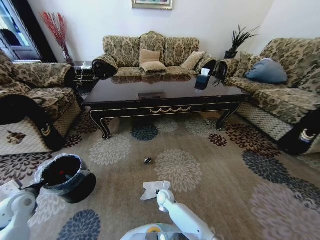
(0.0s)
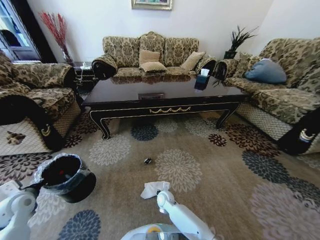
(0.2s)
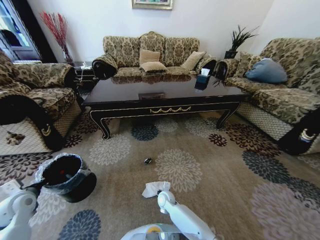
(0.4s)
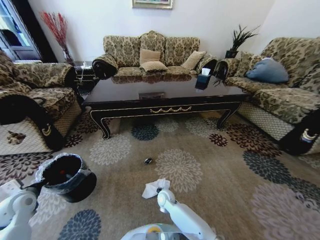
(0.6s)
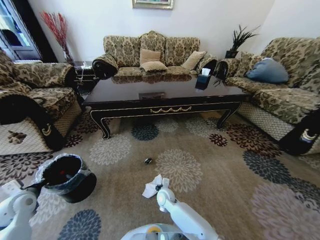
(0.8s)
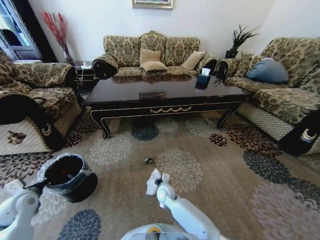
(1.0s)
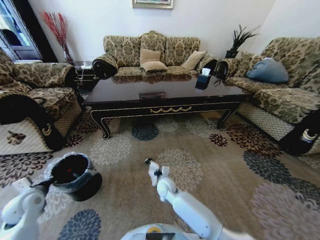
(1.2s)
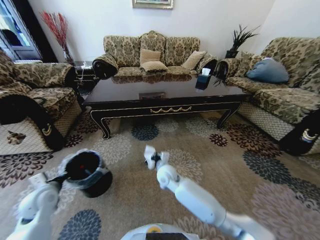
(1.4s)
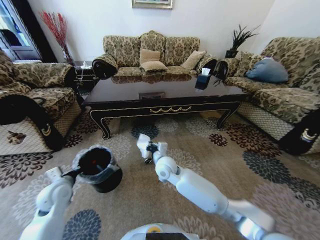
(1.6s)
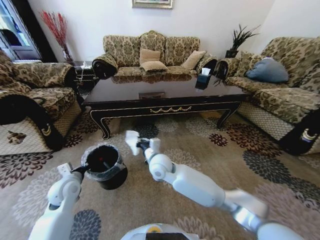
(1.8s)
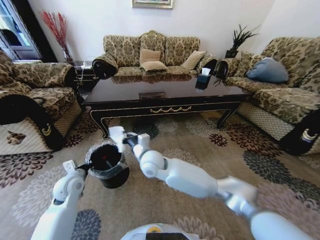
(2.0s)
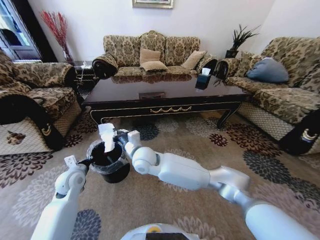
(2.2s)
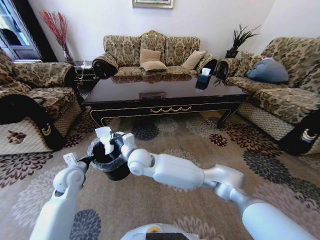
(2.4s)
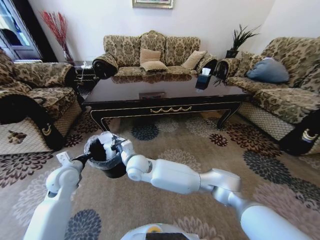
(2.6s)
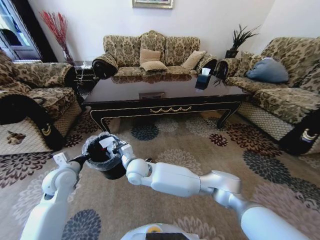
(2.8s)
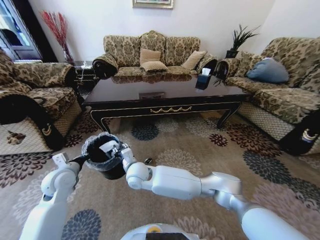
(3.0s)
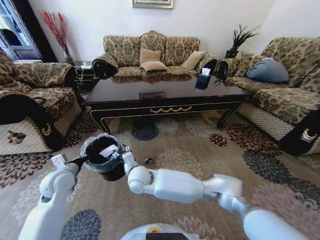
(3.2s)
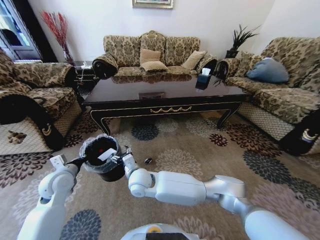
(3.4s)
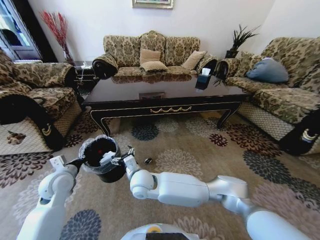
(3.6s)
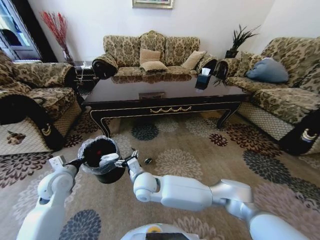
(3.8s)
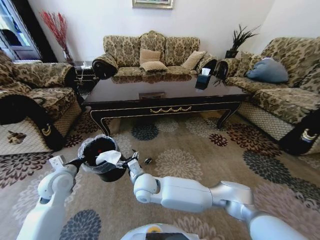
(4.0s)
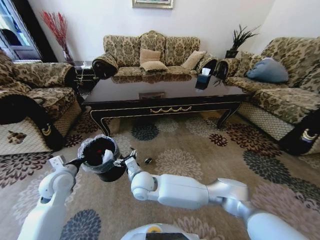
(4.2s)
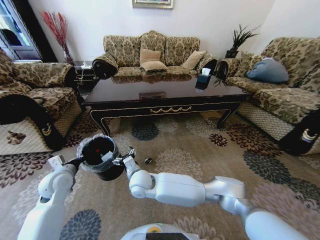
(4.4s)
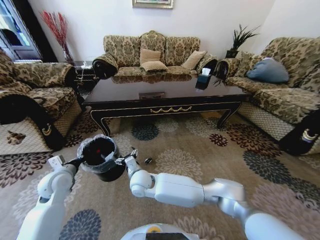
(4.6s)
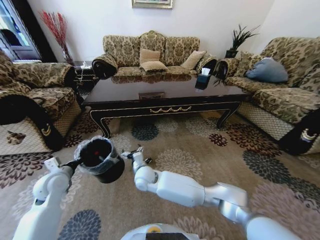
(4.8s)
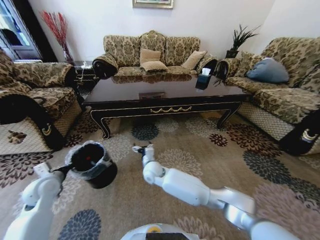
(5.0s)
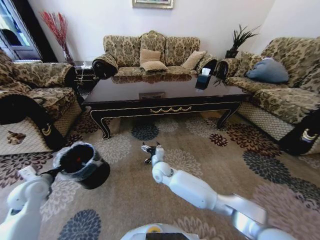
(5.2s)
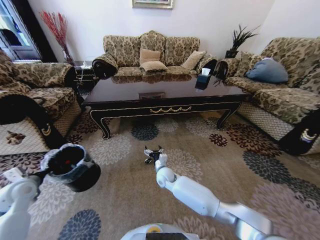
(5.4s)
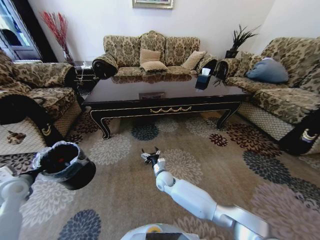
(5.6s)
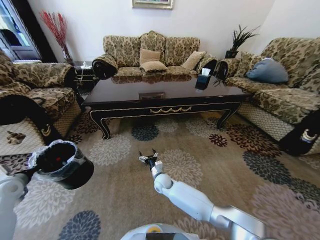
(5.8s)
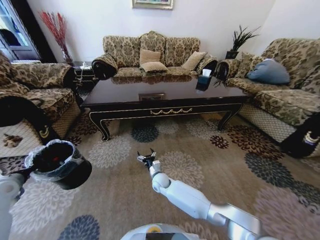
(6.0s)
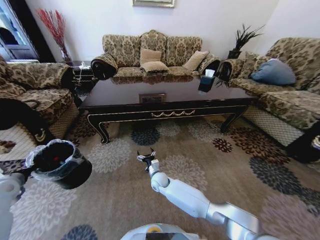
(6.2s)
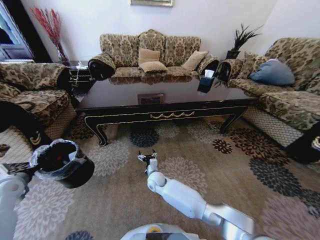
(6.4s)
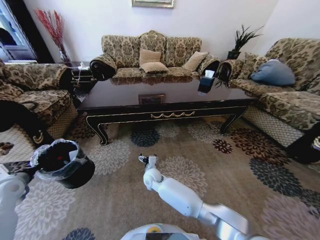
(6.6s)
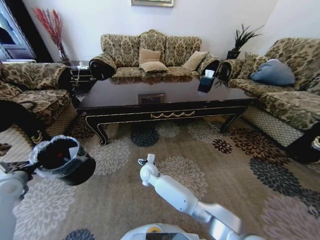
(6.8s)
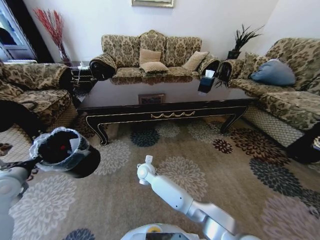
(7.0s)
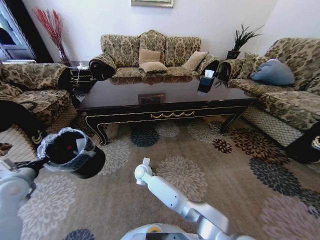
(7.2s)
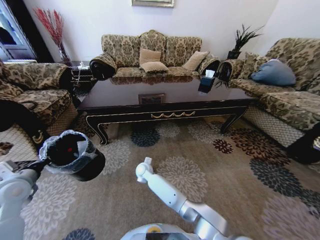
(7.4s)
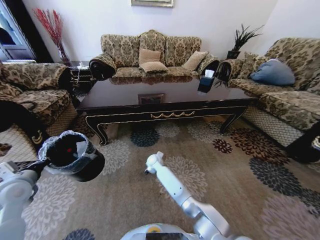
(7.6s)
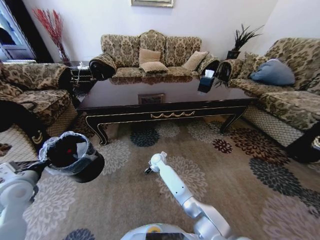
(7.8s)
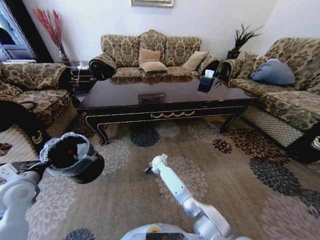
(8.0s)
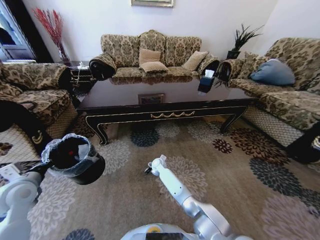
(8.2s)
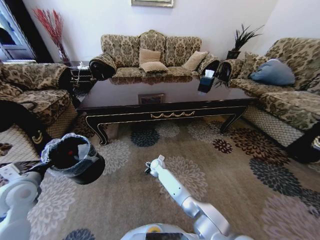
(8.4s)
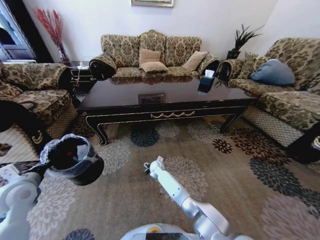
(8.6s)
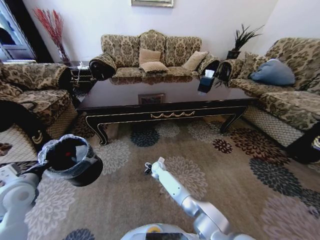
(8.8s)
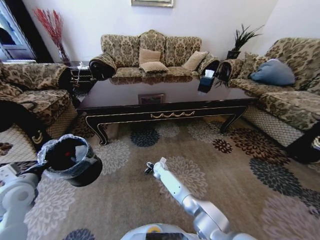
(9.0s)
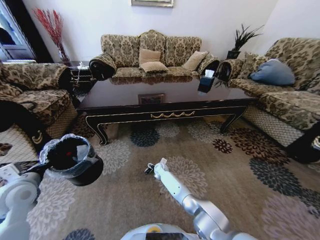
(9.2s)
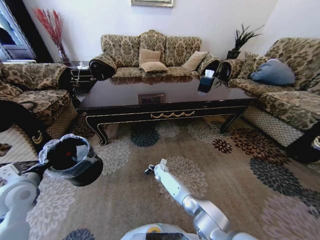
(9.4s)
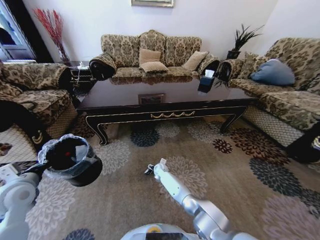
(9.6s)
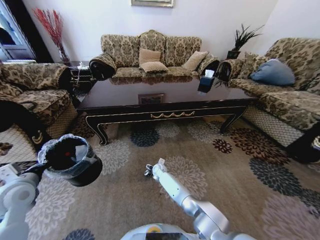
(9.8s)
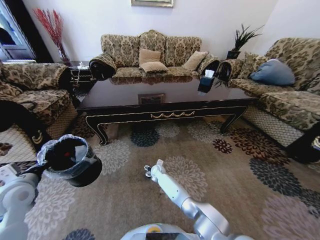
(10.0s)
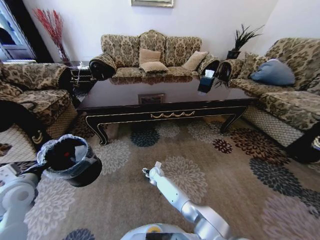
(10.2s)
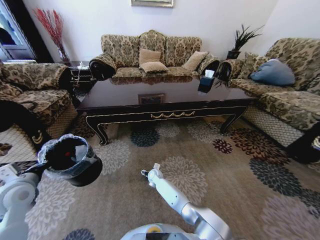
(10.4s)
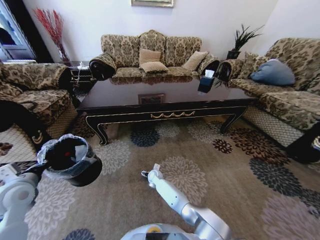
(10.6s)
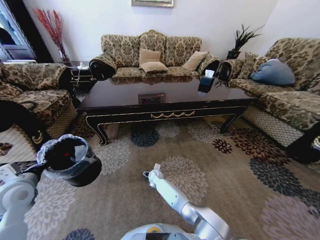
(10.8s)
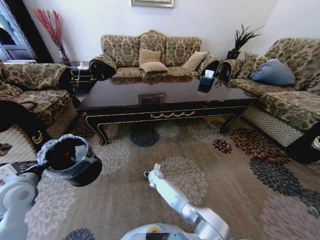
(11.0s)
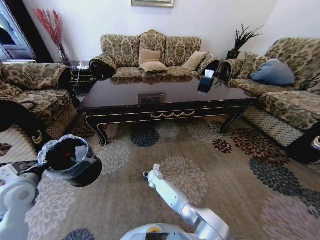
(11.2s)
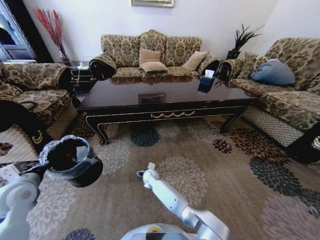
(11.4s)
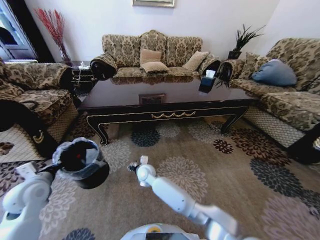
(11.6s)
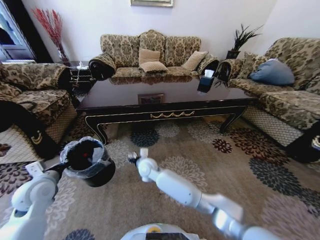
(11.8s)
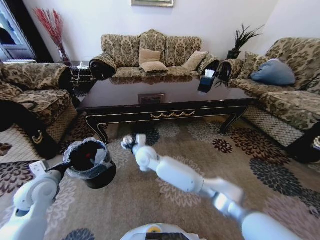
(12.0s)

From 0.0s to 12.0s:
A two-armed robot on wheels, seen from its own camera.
Task of the whole recording: Move to the front of the table and pick up the trash from the floor, then place it into the trash bin.
From 0.0s to 1.6s: The left gripper travels to the right by about 15 cm. The right gripper moves upward, some 25 cm, and closes.
From 1.6s to 3.0s: The right gripper shifts approximately 10 cm to the left, and opens up. Meanwhile the left gripper changes place by some 5 cm.
From 3.0s to 4.4s: The right gripper opens up.
From 4.4s to 6.0s: The left gripper travels to the left by approximately 15 cm, while the right gripper heads downward, to the right and forward, covering approximately 20 cm.
From 6.0s to 7.6s: The right gripper heads forward, covering roughly 10 cm. Meanwhile the left gripper travels to the right by approximately 10 cm.
From 7.6s to 9.0s: The right gripper travels downward and to the right by about 10 cm.
From 9.0s to 10.4s: The right gripper ends up approximately 5 cm from where it was.
From 10.4s to 12.0s: The right gripper goes approximately 25 cm upward, and closes; the left gripper shifts by some 5 cm.

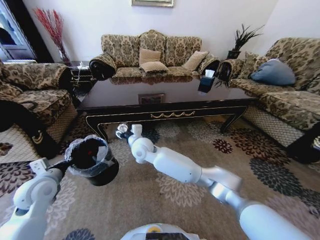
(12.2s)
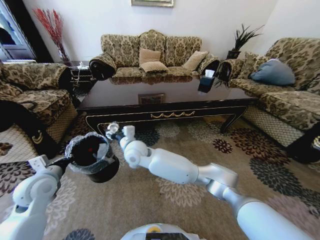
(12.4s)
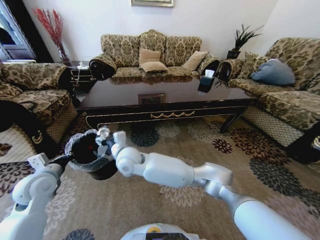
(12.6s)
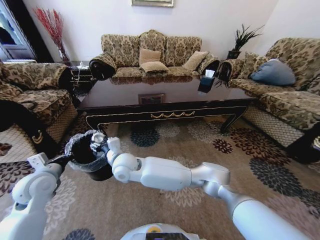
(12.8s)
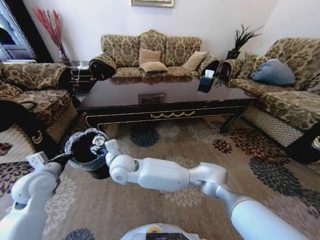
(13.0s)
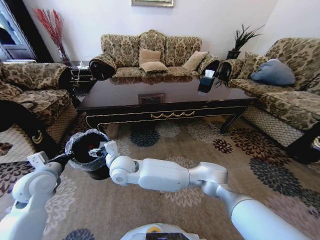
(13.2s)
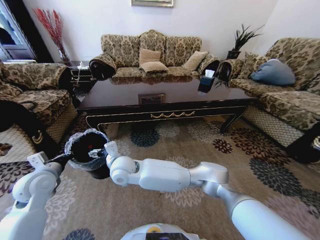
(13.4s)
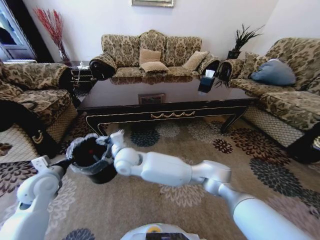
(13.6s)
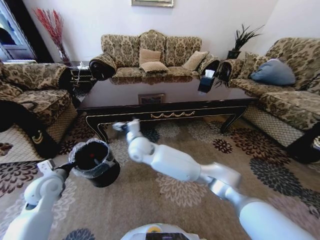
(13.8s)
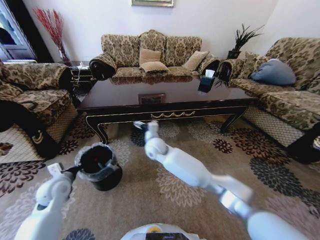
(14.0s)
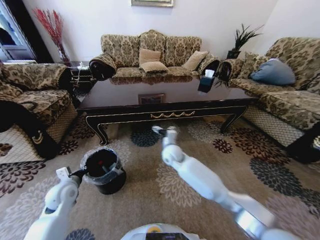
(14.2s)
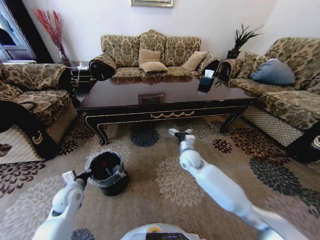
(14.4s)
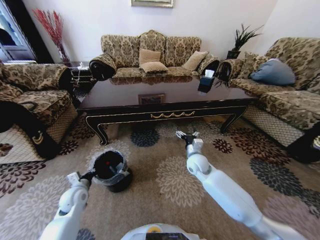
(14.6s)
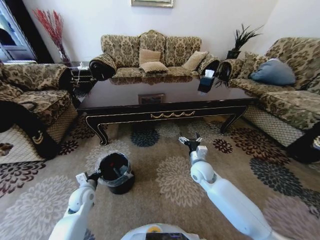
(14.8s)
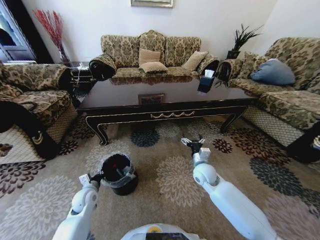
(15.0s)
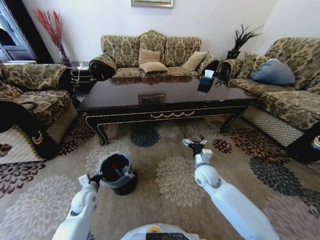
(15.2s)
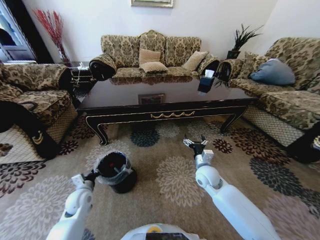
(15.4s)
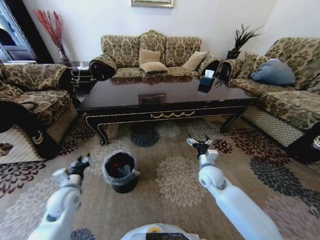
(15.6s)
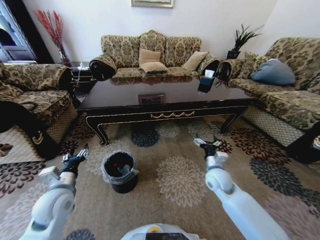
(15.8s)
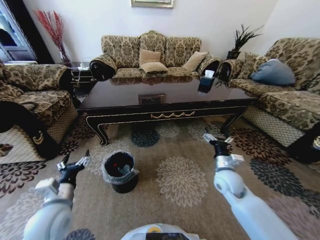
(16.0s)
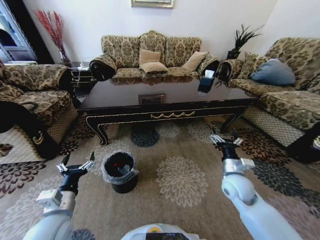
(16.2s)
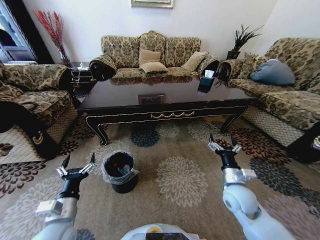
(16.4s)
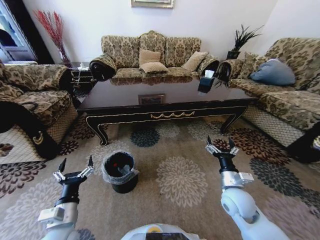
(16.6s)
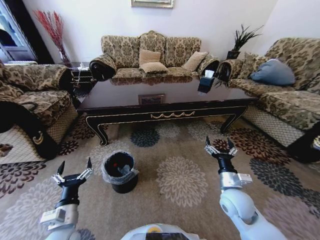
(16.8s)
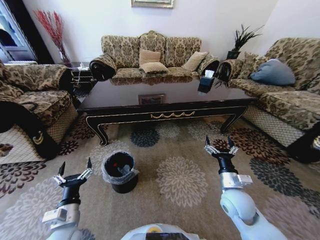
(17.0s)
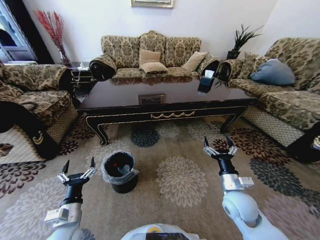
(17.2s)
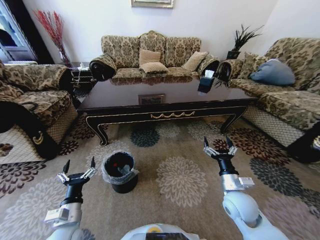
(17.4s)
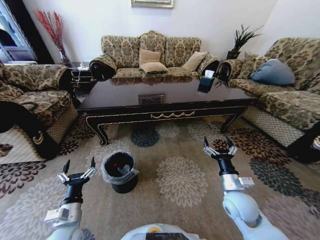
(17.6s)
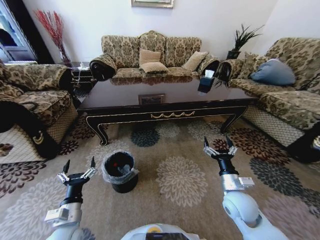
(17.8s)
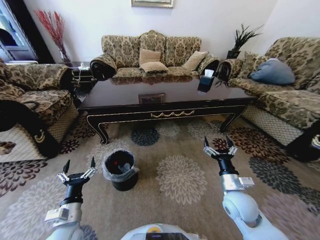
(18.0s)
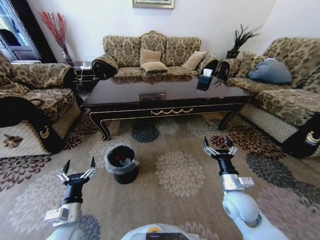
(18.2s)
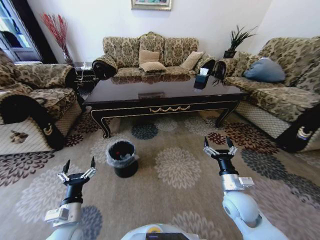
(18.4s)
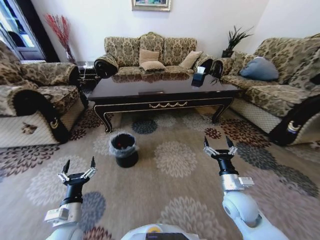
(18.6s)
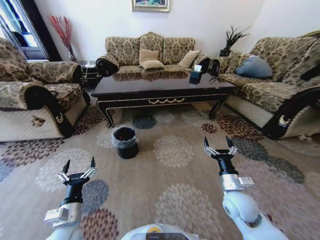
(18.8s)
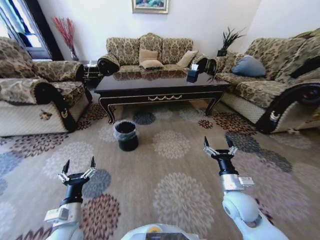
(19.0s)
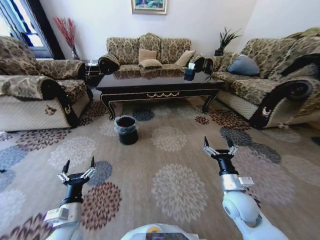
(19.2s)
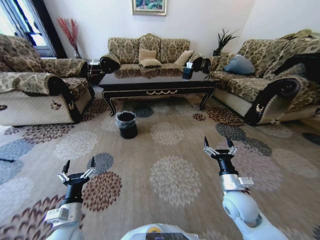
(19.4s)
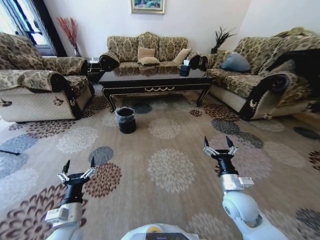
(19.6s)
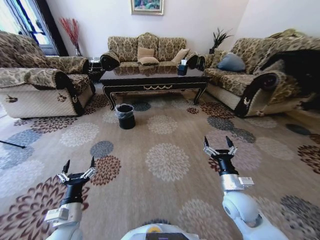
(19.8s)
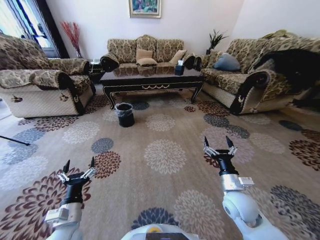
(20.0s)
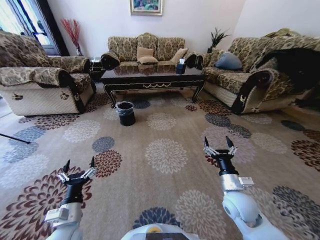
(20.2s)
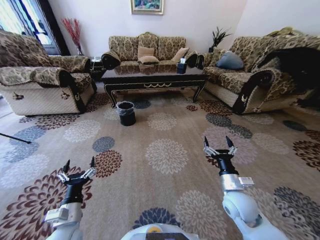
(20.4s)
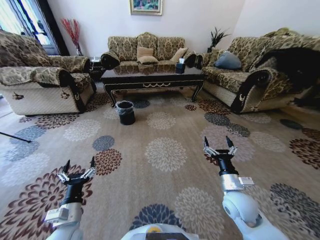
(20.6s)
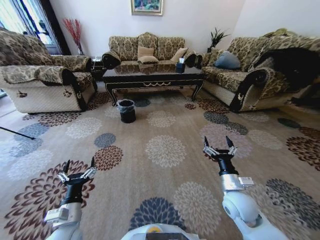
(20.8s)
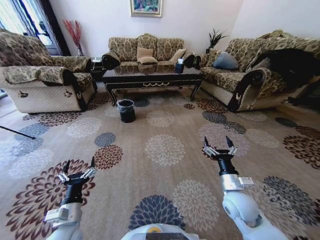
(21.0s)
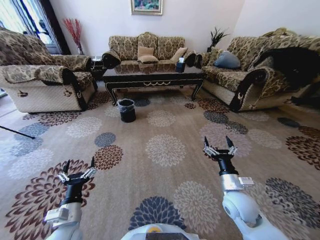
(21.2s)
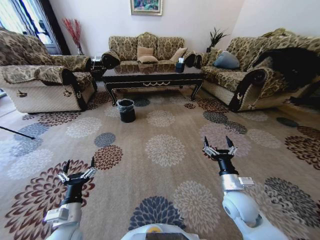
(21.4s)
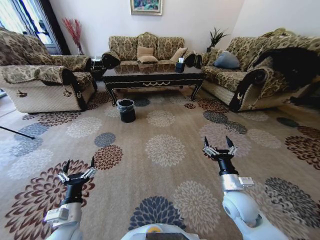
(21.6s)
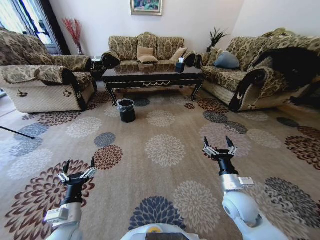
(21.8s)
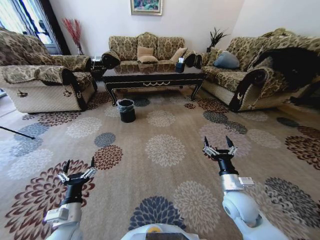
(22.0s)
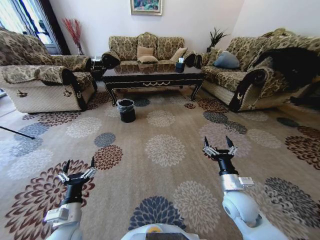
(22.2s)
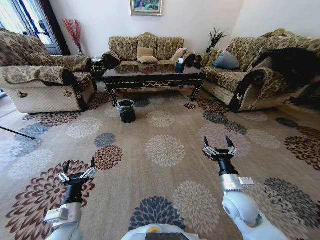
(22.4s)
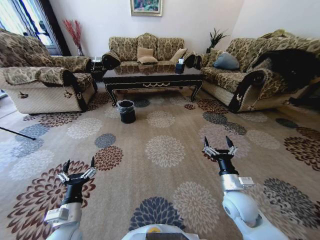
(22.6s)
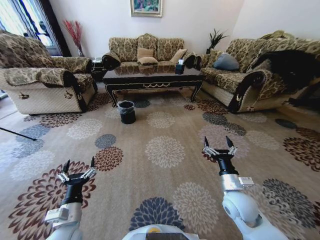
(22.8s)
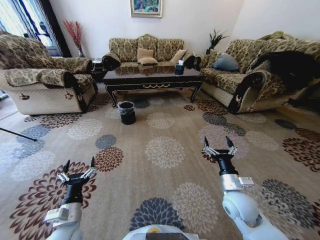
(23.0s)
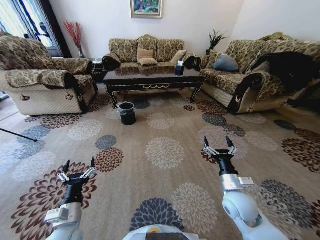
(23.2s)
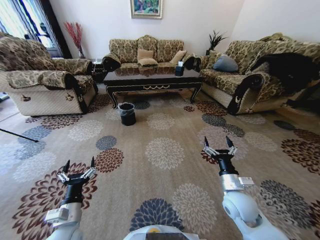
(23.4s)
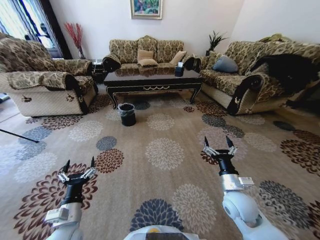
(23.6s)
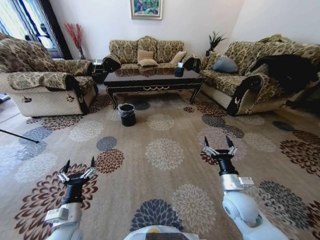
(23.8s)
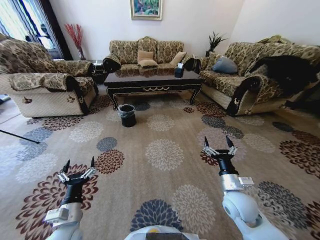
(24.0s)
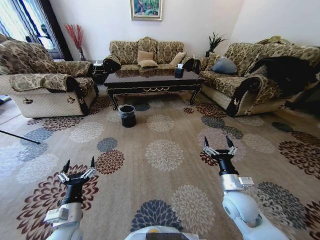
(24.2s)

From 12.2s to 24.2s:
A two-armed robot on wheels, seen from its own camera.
Task of the whole recording: Move to the front of the table and pick up the trash from the floor, then place it into the trash bin.
From 12.2s to 13.8s: The right gripper goes backward and returns, some 10 cm each way, and opens up.
From 13.8s to 15.2s: The right gripper travels to the right and downward by about 30 cm; the left gripper is displaced downward and to the right by approximately 15 cm.
From 15.2s to 16.6s: The left gripper moves backward and upward, approximately 20 cm, and opens. The right gripper heads backward and to the right, covering some 15 cm.
From 21.2s to 22.6s: Both grippers stay put.
